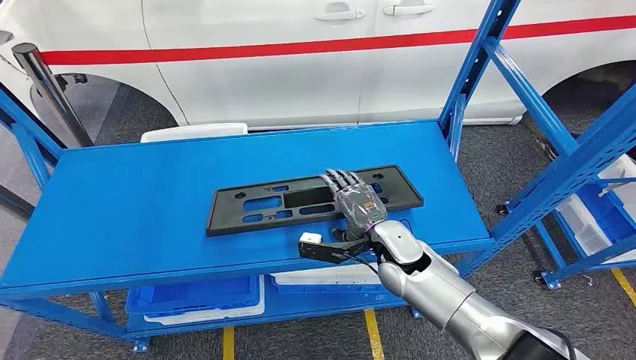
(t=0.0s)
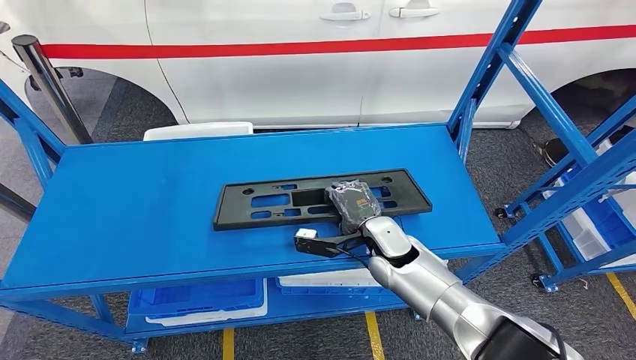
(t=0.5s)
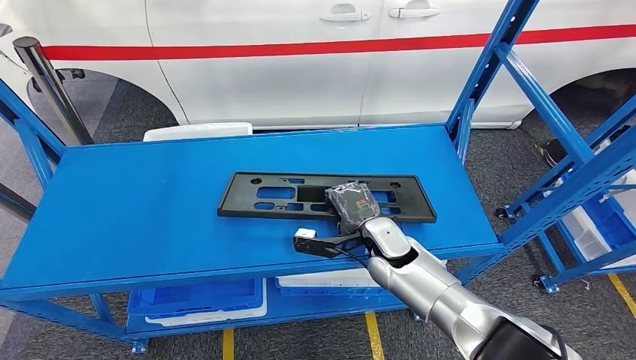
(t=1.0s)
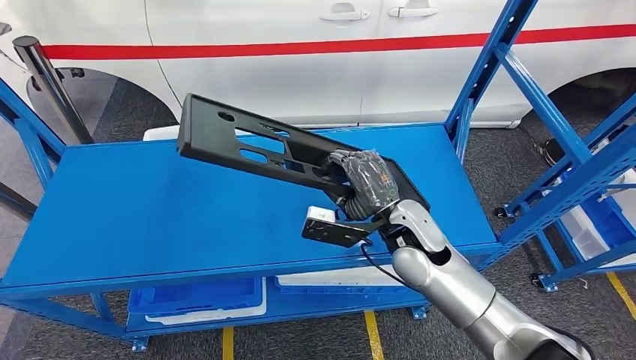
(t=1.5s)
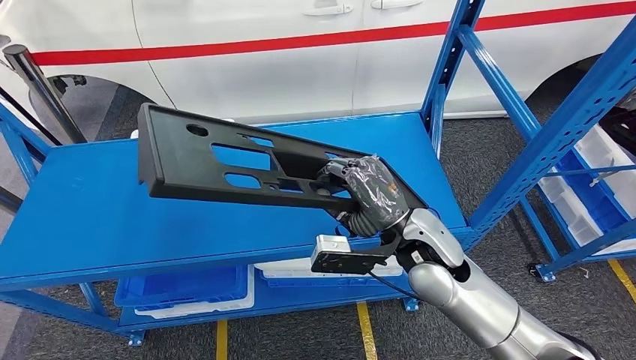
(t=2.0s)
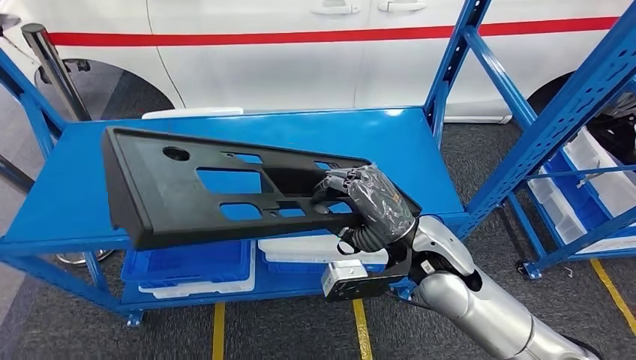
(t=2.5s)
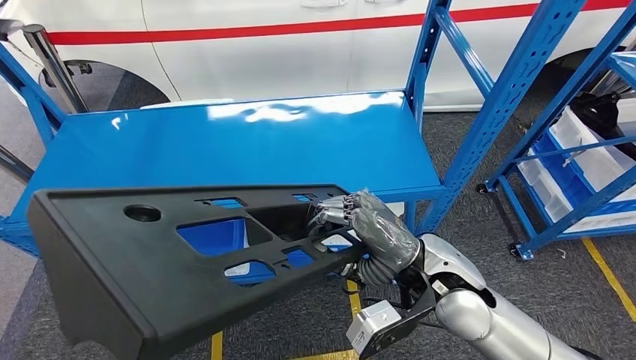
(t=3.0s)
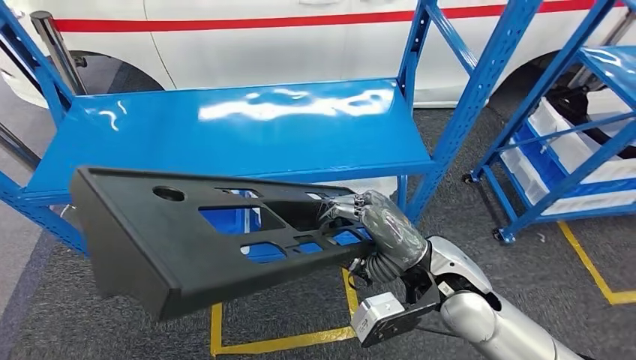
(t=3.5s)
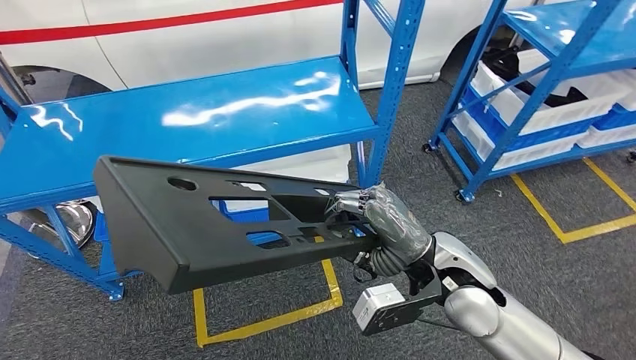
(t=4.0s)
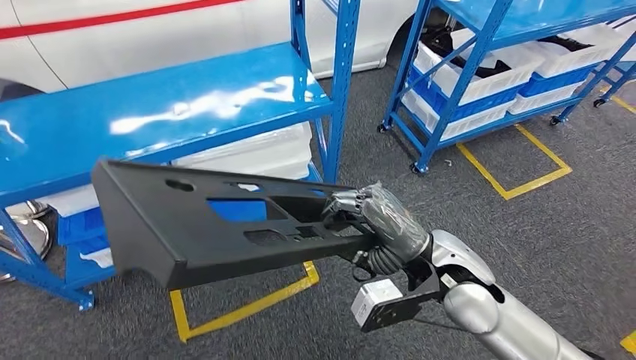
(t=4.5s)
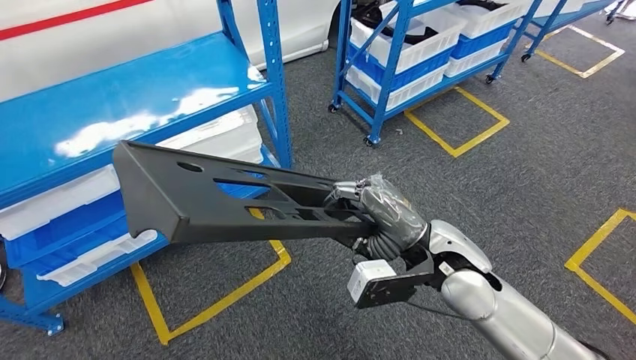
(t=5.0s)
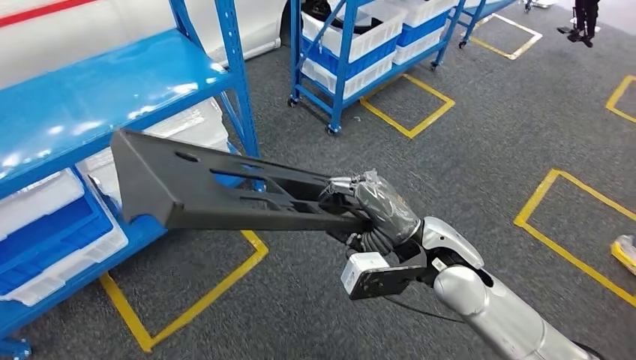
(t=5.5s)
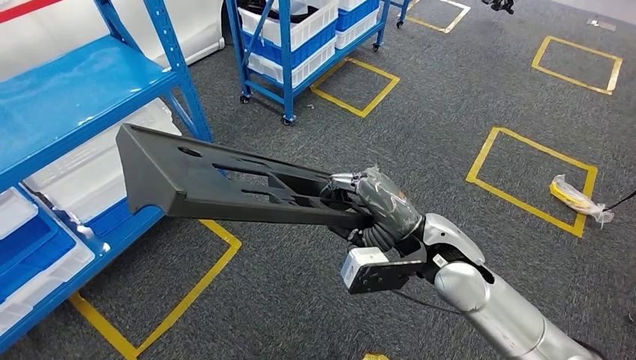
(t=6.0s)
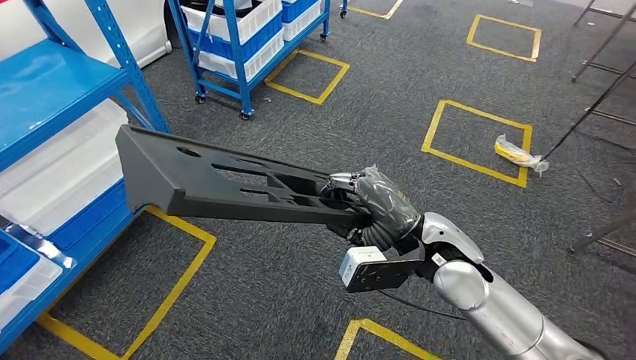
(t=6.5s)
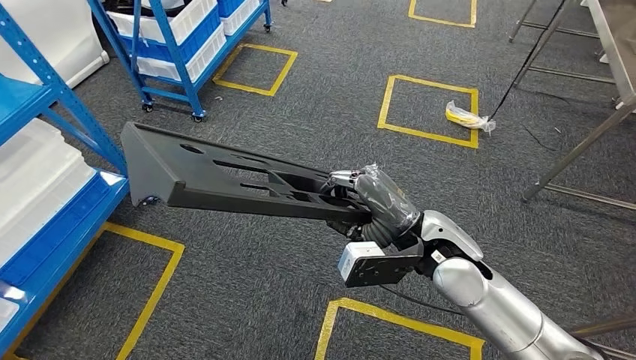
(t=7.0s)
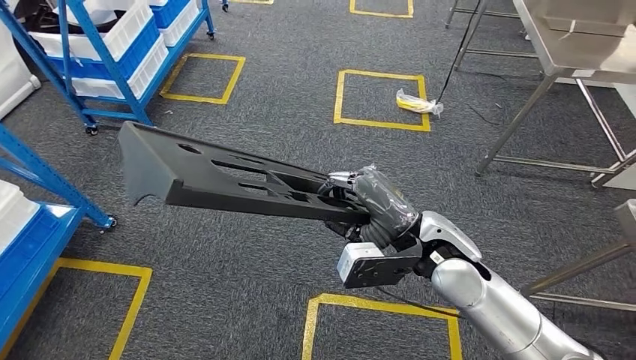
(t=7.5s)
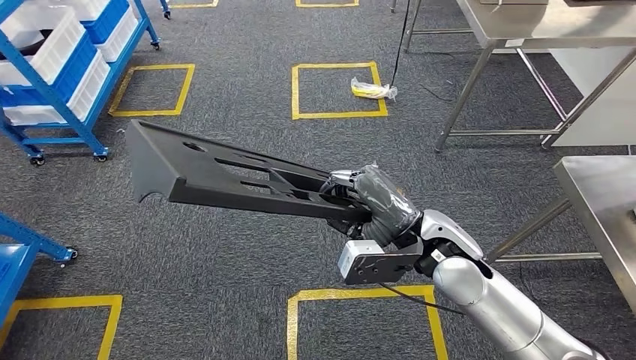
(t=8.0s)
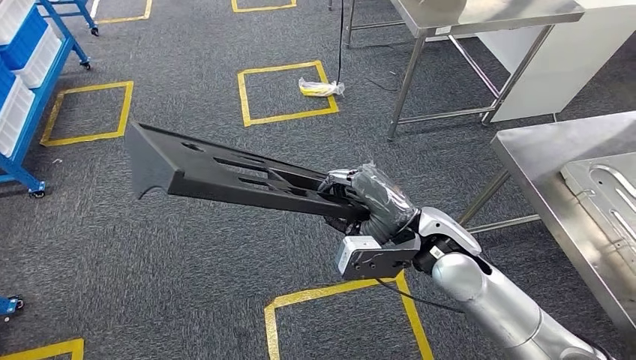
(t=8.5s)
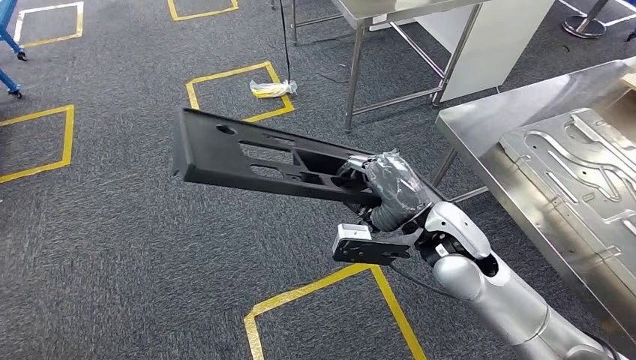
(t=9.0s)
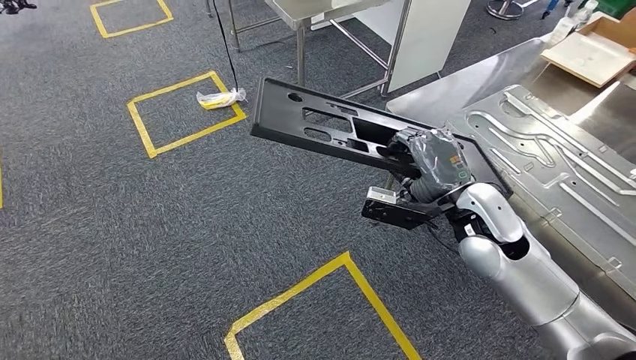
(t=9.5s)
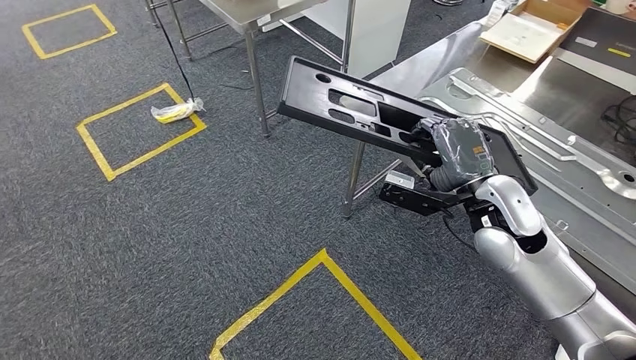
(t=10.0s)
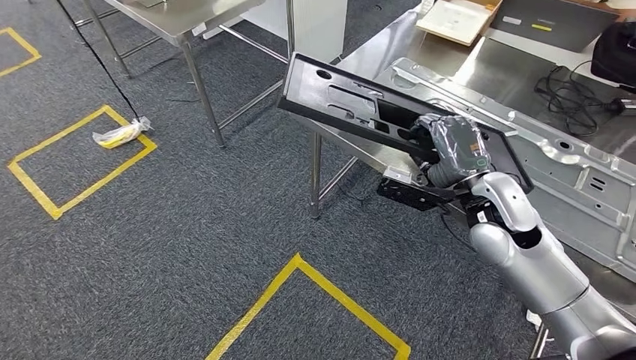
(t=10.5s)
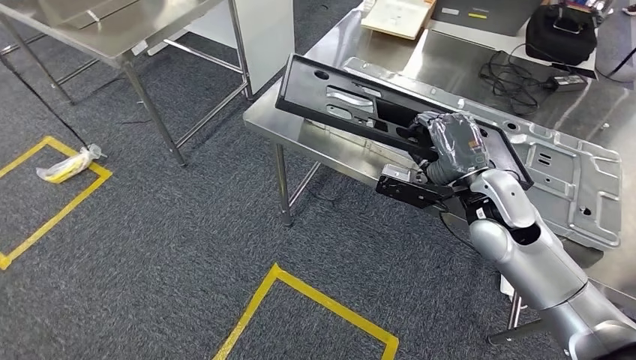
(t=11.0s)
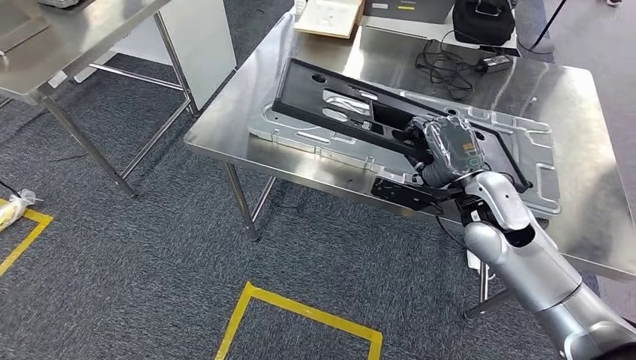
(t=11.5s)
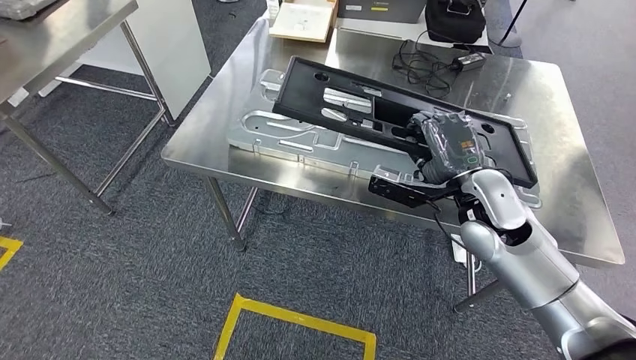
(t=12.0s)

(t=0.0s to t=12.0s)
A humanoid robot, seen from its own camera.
Step, t=0.0s - t=4.0s: Pick up the large material from the shelf.
Step, t=5.0s - t=11.5s: Move the large material to the workbench.

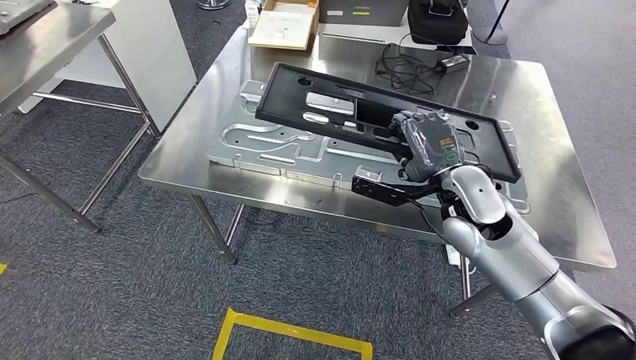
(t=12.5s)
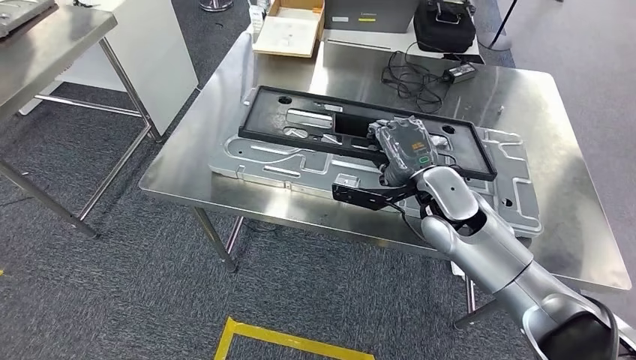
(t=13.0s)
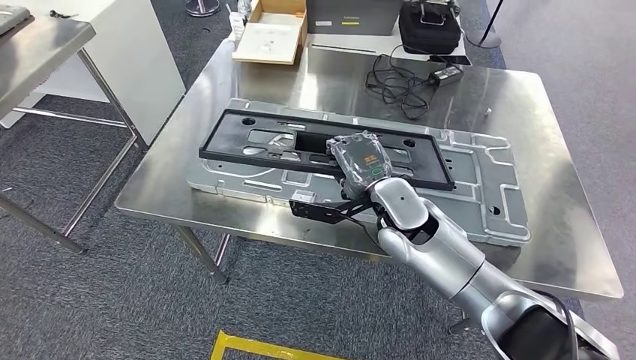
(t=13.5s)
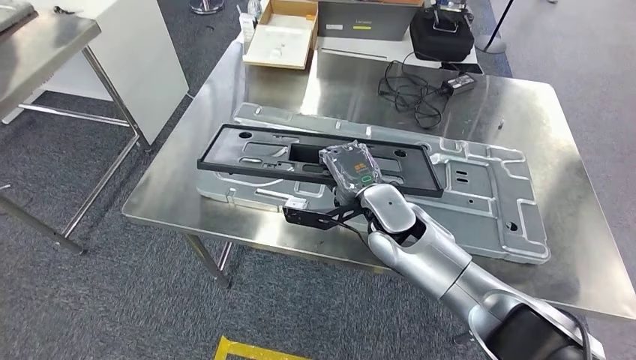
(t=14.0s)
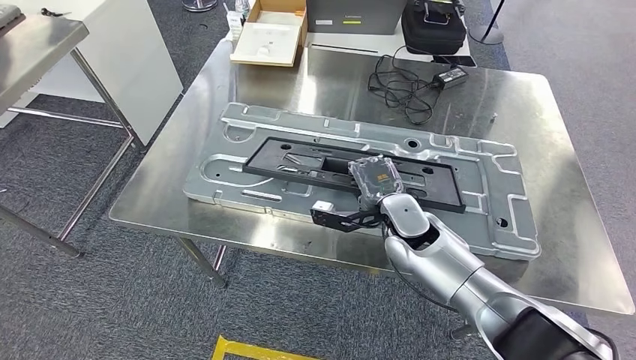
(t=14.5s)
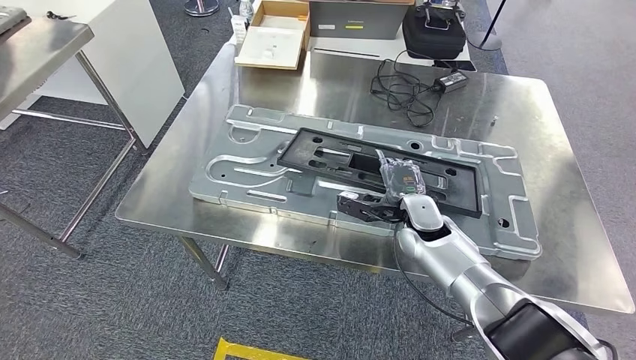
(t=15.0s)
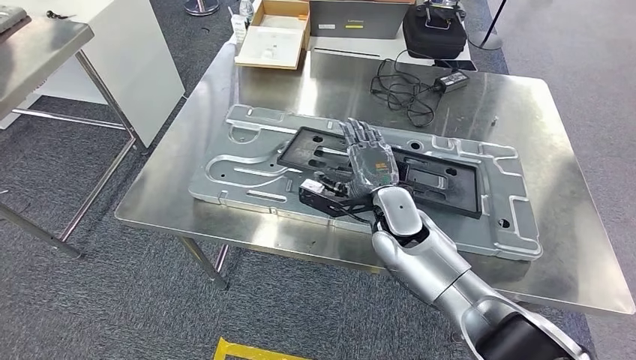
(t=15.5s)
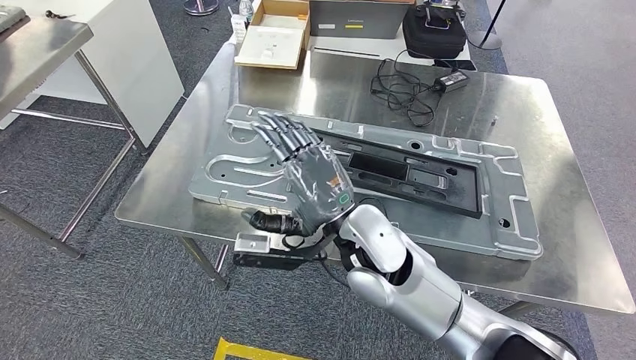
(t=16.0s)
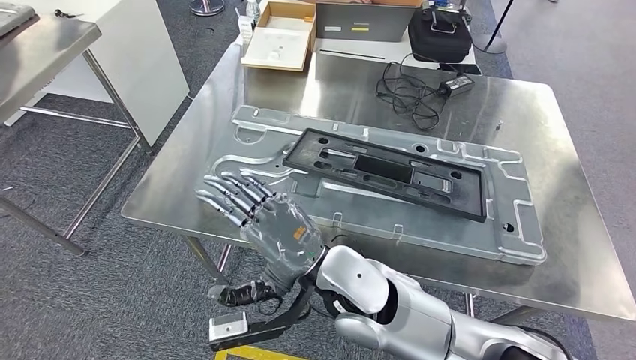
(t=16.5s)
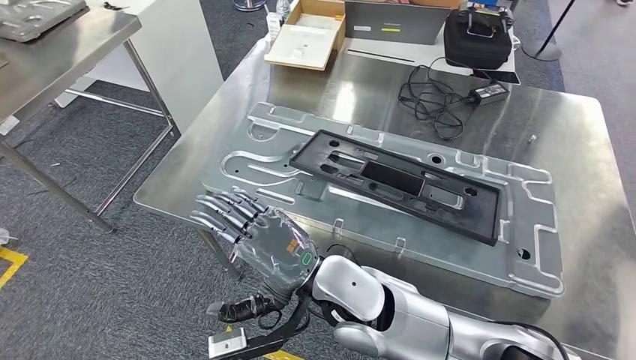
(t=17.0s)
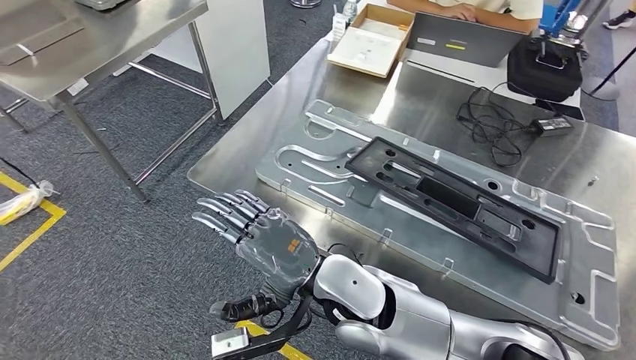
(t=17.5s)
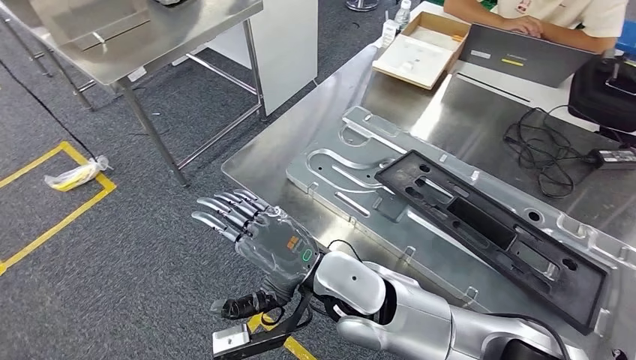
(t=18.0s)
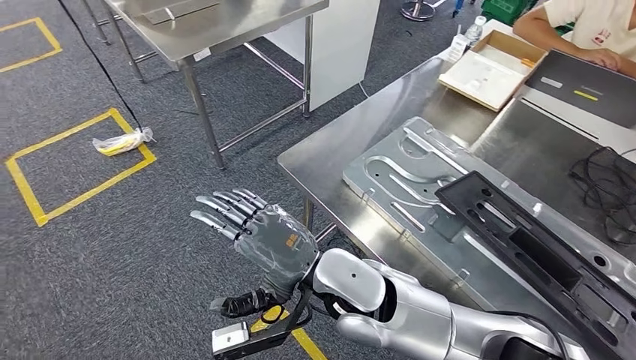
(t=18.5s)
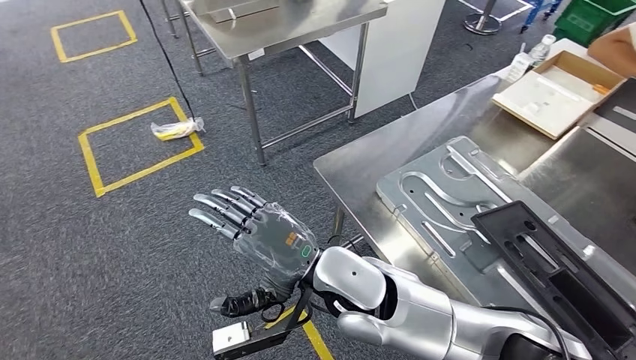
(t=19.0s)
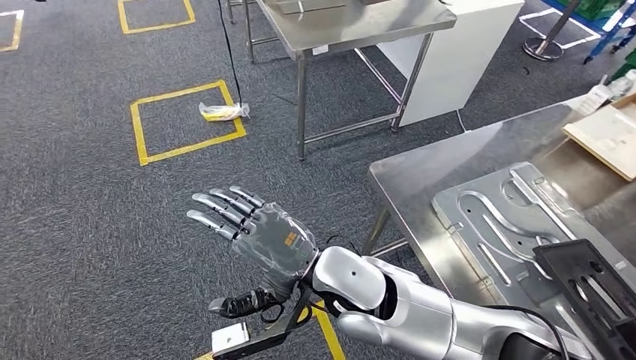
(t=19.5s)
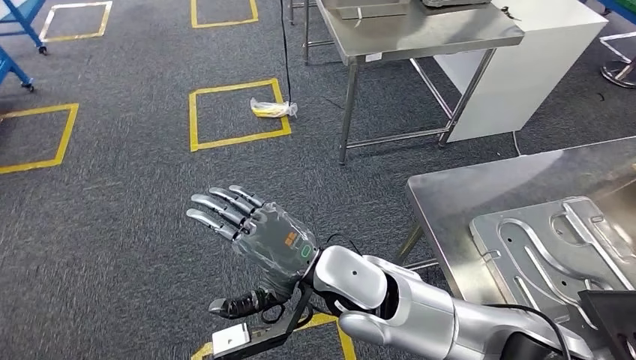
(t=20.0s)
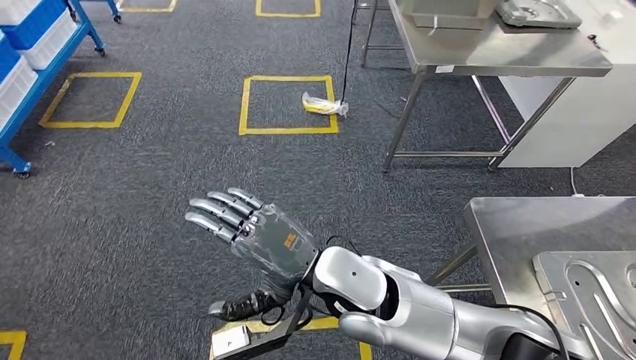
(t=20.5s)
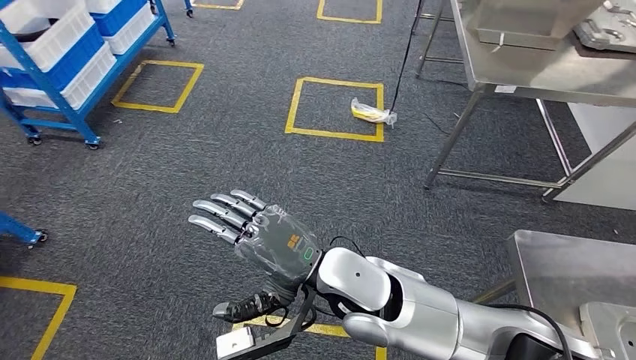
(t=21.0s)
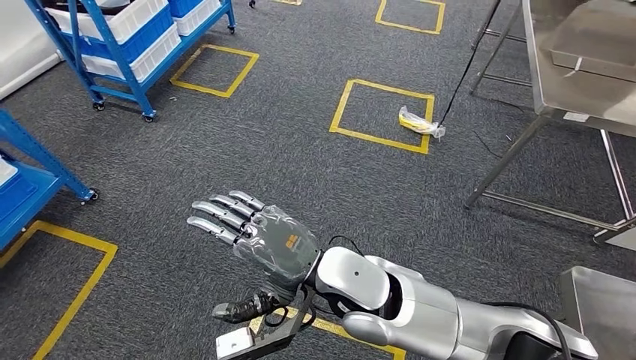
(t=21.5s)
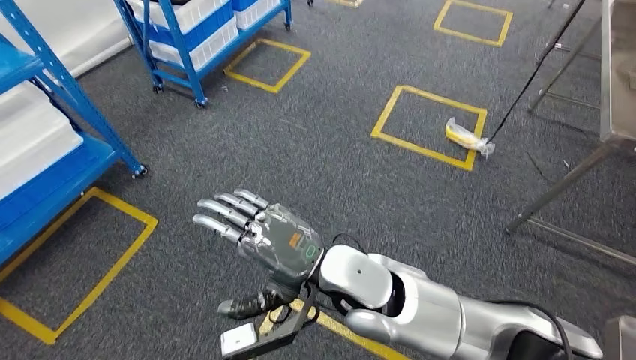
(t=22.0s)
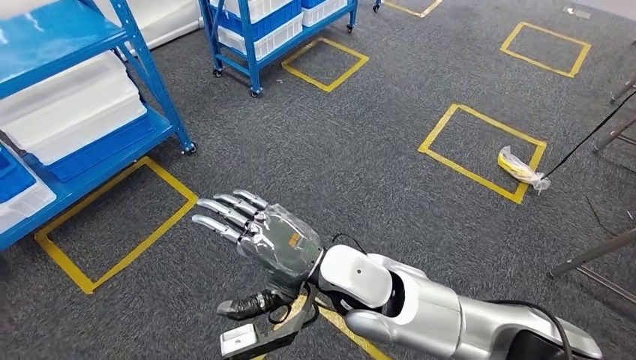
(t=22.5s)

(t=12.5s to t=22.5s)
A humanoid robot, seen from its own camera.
Step, t=12.5s - t=15.0s: Insert the large material into the corresponding slot on the workbench.
